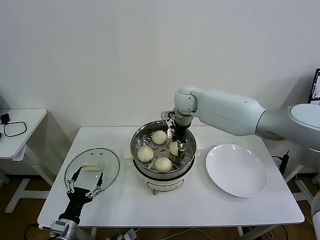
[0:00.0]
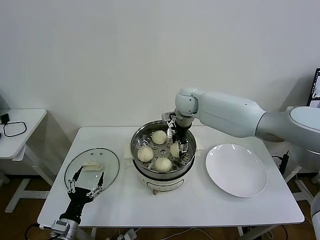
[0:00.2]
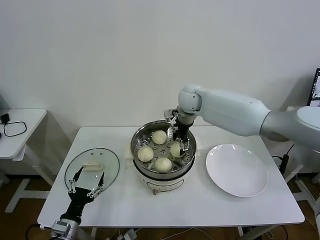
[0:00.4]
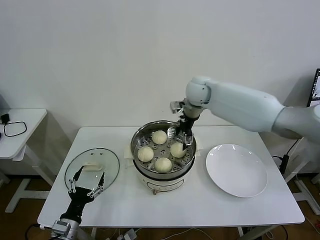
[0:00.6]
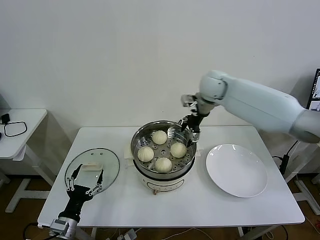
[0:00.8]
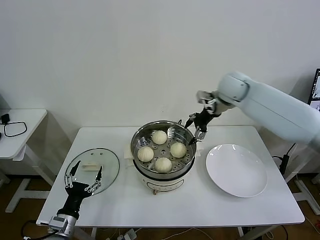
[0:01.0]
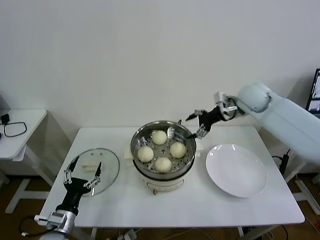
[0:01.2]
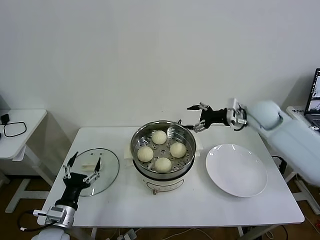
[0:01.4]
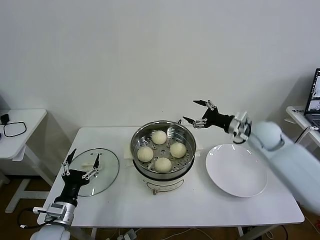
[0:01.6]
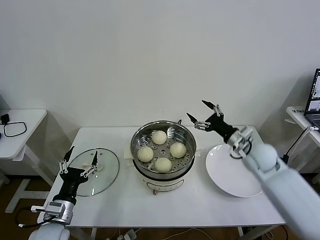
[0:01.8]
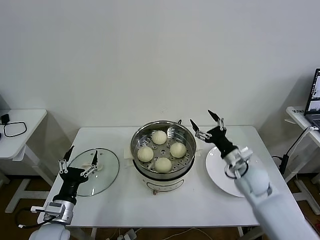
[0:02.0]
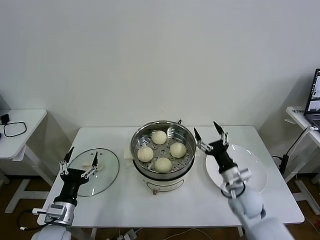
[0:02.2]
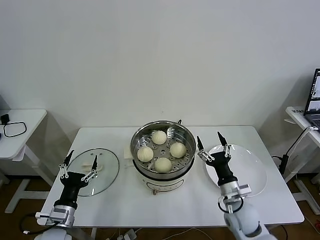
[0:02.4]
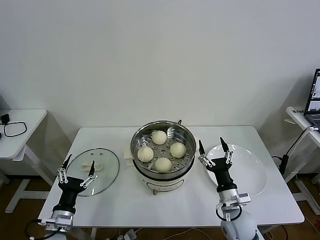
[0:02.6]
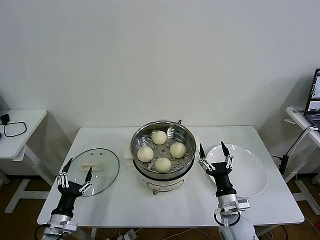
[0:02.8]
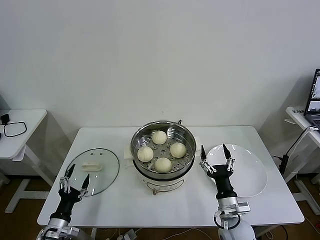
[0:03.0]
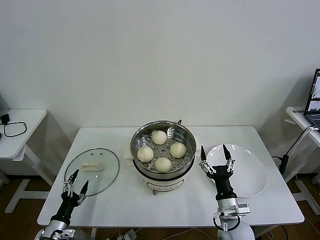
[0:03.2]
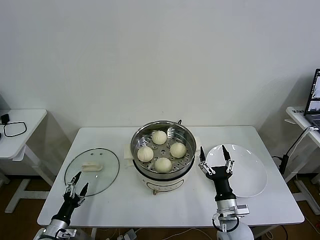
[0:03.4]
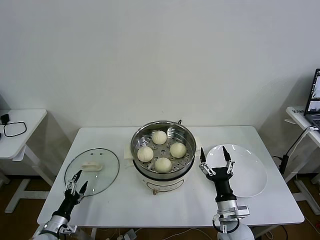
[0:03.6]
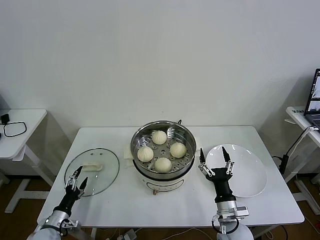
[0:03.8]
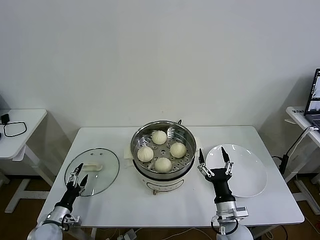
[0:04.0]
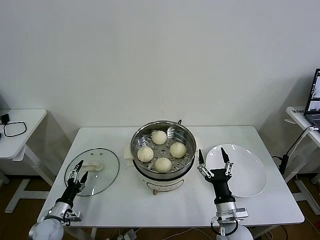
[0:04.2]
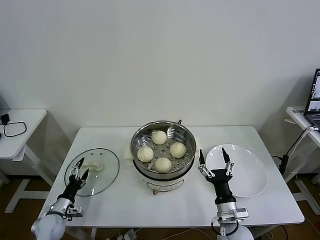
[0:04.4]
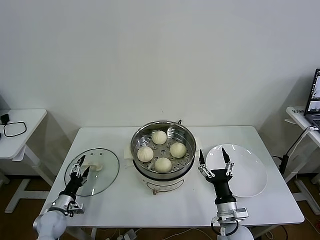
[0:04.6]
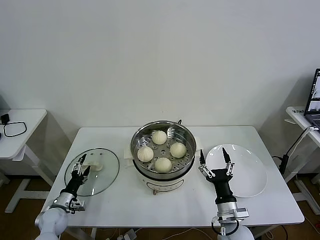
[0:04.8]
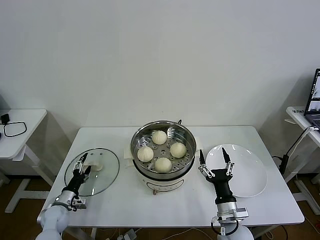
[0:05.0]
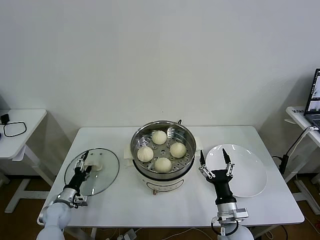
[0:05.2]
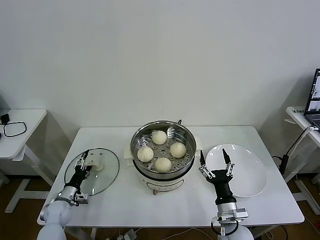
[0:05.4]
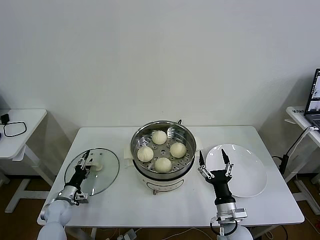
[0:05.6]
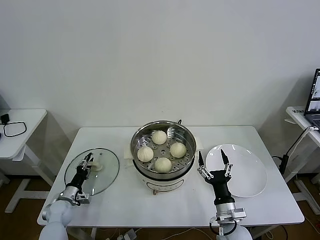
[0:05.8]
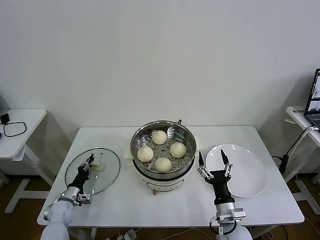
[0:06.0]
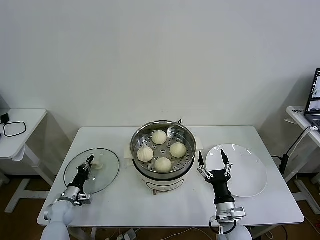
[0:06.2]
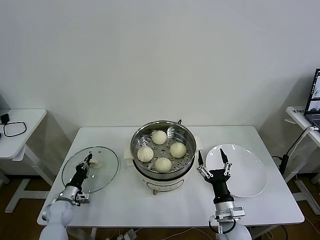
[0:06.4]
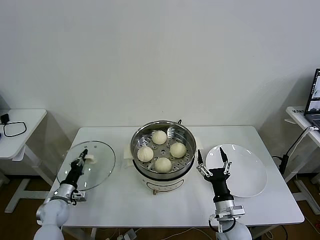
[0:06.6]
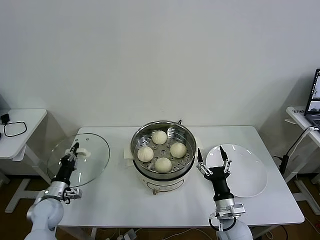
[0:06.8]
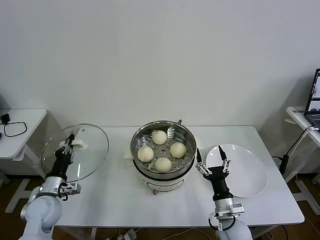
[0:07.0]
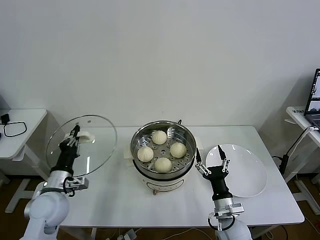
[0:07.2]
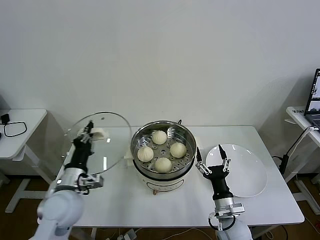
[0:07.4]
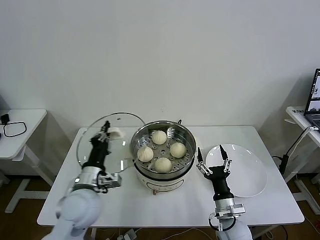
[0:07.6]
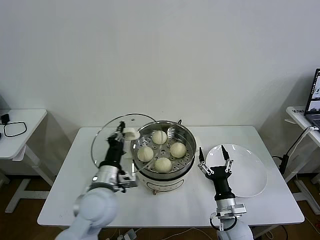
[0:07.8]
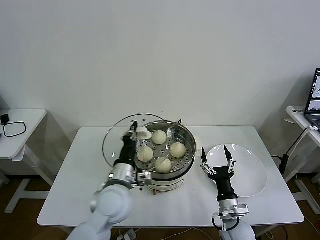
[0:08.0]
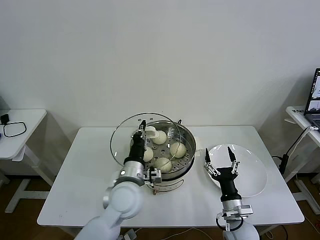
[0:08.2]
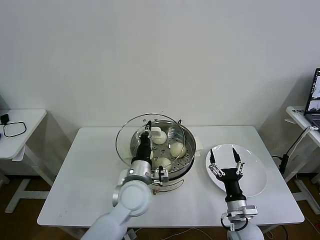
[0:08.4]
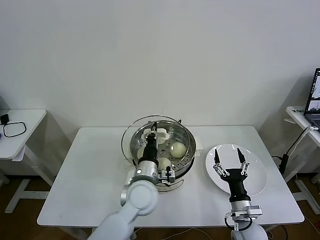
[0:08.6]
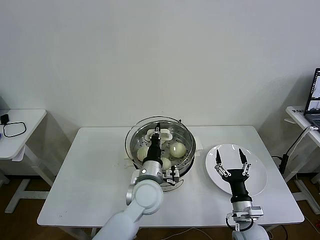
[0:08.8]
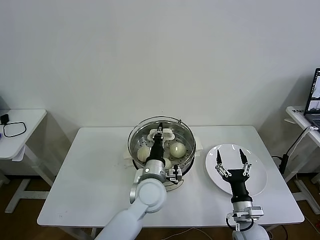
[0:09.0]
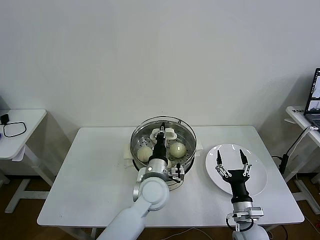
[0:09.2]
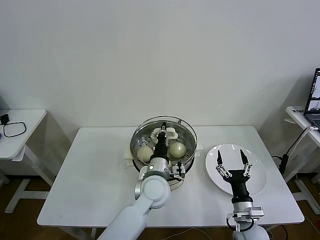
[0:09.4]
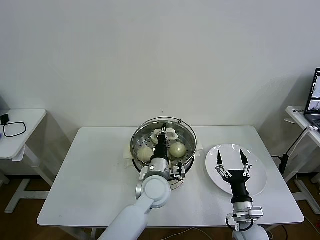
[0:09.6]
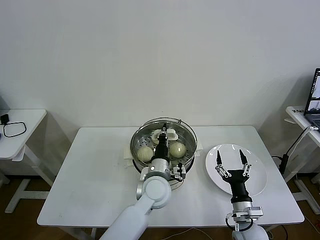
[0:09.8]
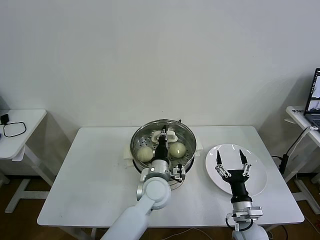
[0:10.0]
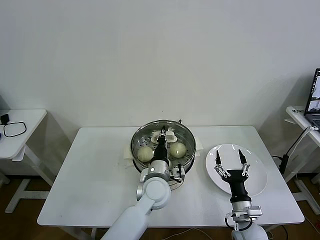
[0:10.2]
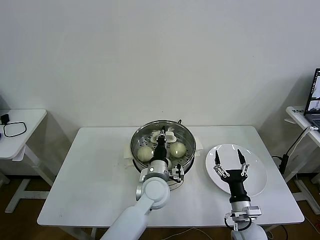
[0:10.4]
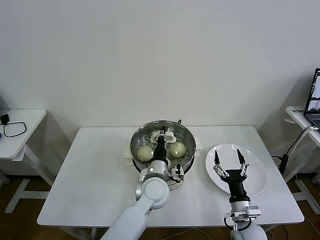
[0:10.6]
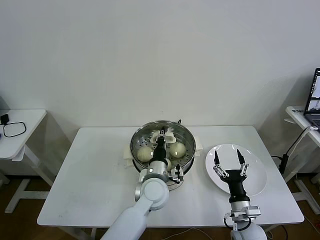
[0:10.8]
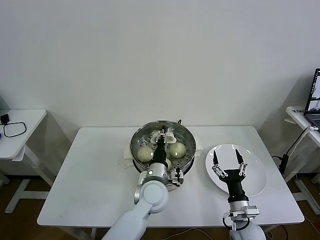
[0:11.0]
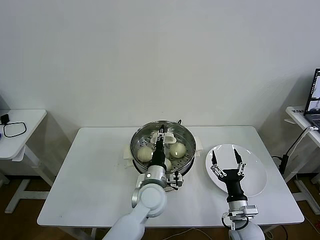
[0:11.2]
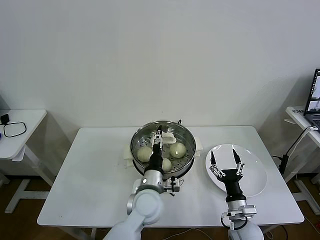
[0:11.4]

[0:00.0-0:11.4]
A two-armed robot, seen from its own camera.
Task of the whole recording: take steamed baozi put them in steamer then cover it.
Step, 0.6 to 6.2 s: Grasp the pot lid with left gripper.
Step, 6.4 to 11.0 s: Place the pot lid on the steamer with left gripper.
0.0 to 1.4 s: The right gripper heads to the right, covering some 25 cm, and opens up. Meanwhile the left gripper travels upward by some 5 cm.
1.4 to 2.8 s: The right gripper shifts some 35 cm backward and downward, while the left gripper goes about 5 cm downward.
2.8 to 4.2 s: The left gripper heads downward, to the left and forward, covering about 10 cm.
4.2 to 5.6 s: The left gripper is displaced forward by approximately 5 cm.
5.6 to 7.2 s: The left gripper heads upward, covering some 20 cm, and closes its fingers.
7.2 to 8.6 s: The left gripper shifts approximately 25 cm to the right.
8.6 to 10.0 s: The left gripper shifts by approximately 5 cm.
10.0 to 11.4 s: The left gripper opens up.

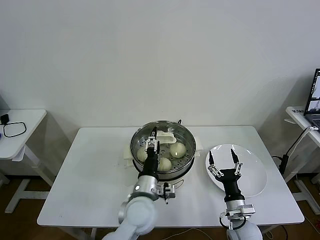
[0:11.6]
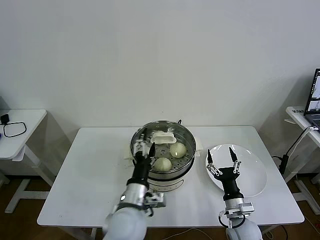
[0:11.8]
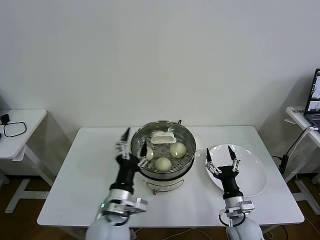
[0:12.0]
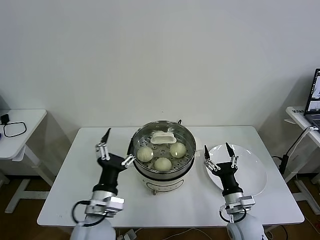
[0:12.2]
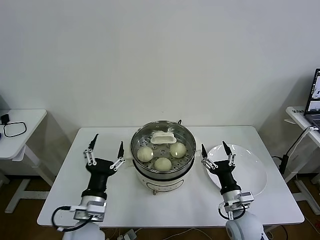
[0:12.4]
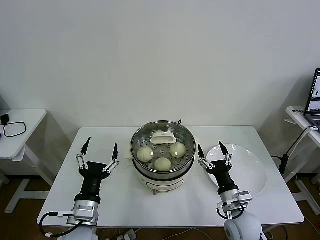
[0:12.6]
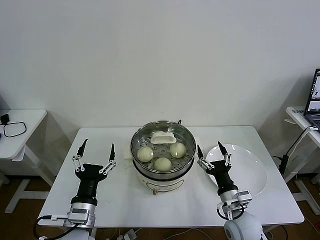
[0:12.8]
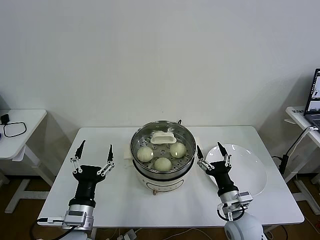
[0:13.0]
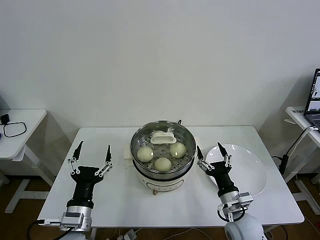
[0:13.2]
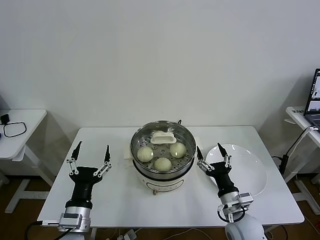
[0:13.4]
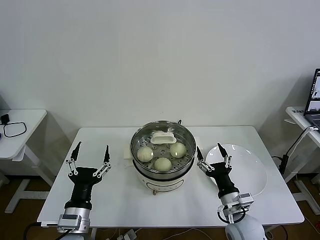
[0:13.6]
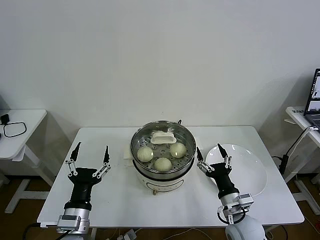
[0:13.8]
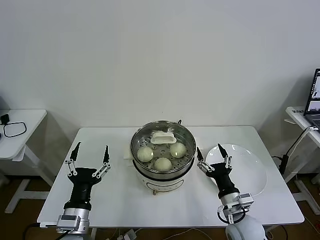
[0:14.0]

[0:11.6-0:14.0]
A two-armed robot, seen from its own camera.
Task of the whole recording: take steamed baozi put them in steamer then cover it.
11.6 to 12.8 s: The right gripper is displaced upward by some 5 cm. Meanwhile the left gripper heads to the left and backward, covering some 20 cm.
12.8 to 14.0 s: The grippers make only small movements.

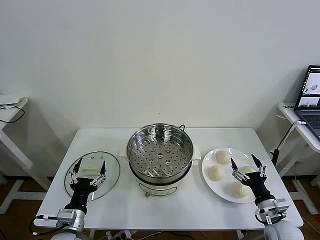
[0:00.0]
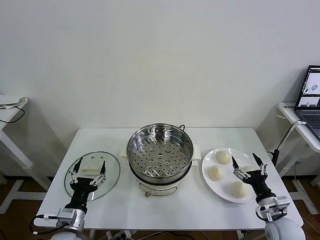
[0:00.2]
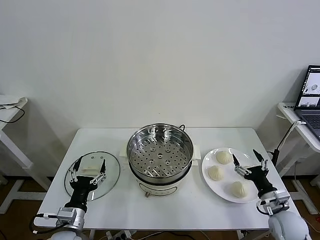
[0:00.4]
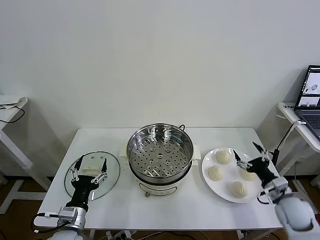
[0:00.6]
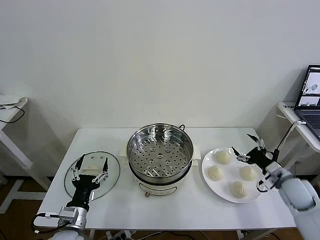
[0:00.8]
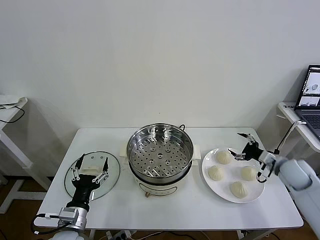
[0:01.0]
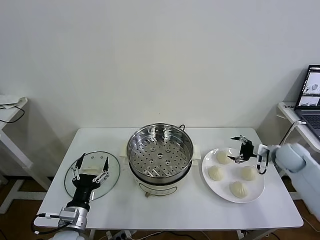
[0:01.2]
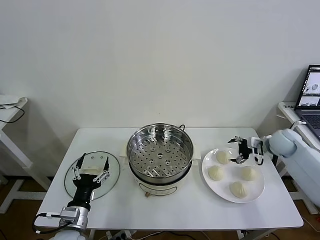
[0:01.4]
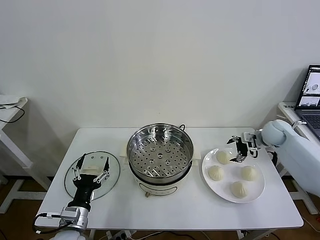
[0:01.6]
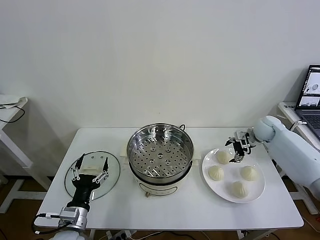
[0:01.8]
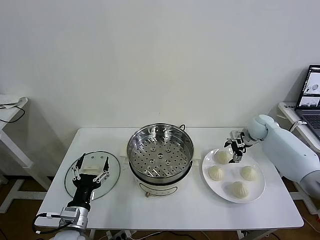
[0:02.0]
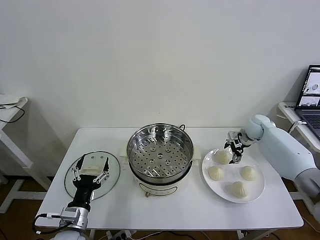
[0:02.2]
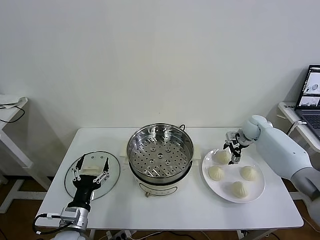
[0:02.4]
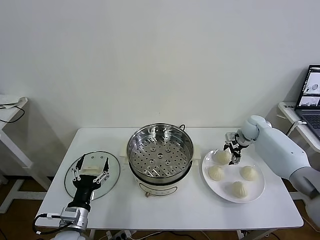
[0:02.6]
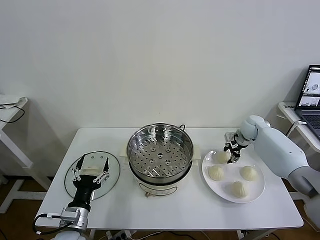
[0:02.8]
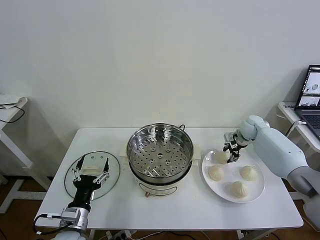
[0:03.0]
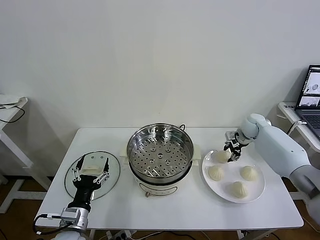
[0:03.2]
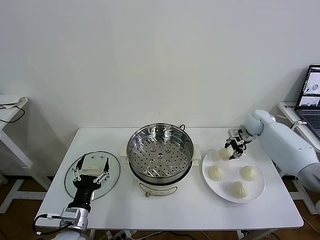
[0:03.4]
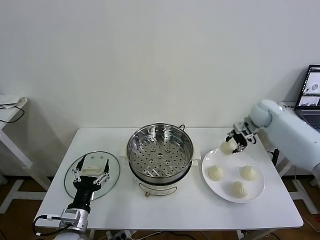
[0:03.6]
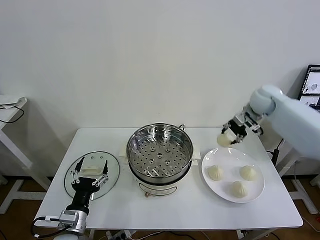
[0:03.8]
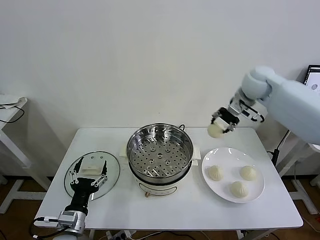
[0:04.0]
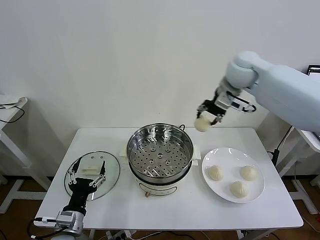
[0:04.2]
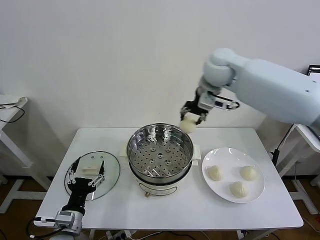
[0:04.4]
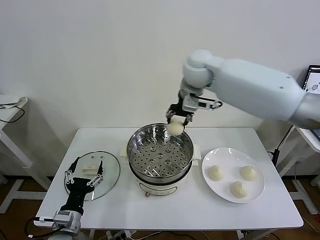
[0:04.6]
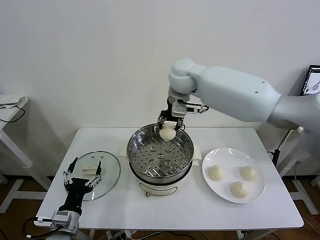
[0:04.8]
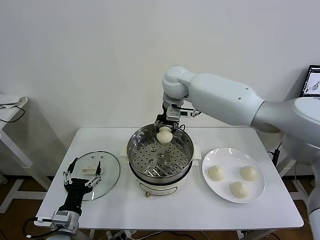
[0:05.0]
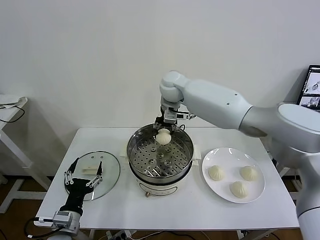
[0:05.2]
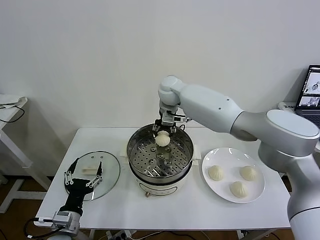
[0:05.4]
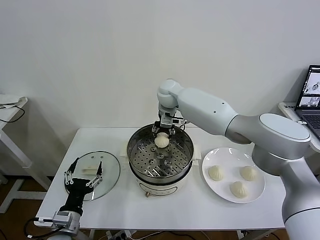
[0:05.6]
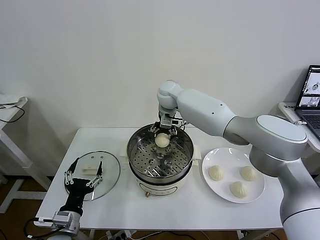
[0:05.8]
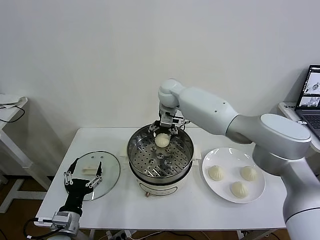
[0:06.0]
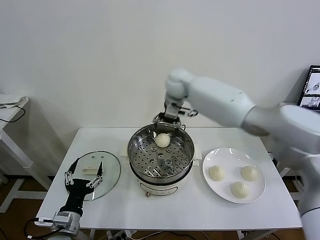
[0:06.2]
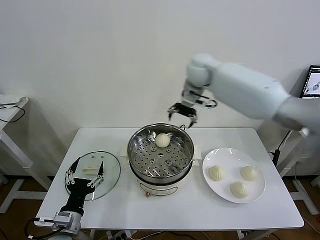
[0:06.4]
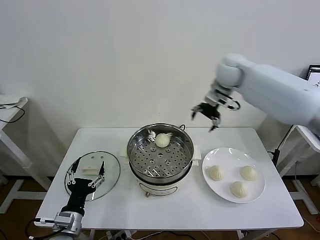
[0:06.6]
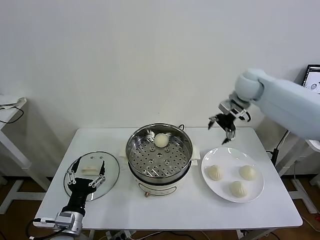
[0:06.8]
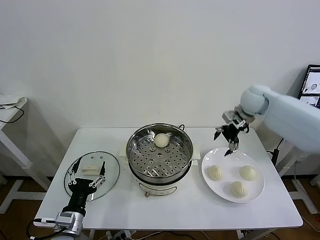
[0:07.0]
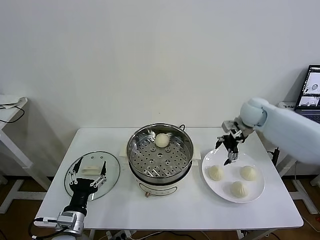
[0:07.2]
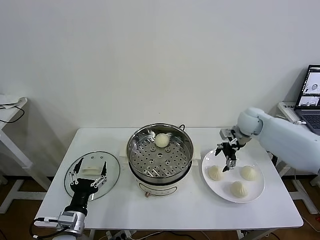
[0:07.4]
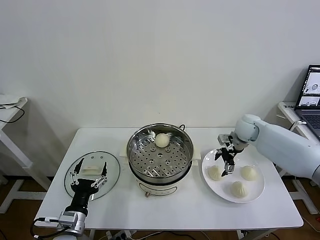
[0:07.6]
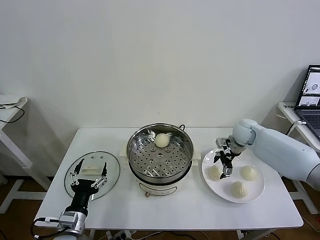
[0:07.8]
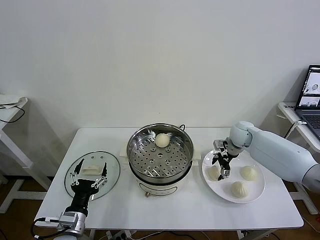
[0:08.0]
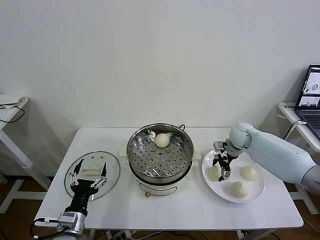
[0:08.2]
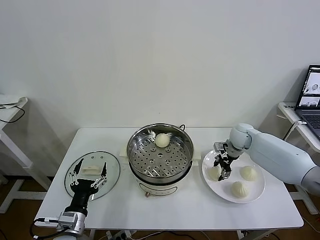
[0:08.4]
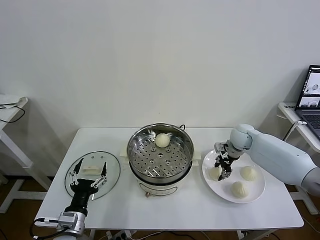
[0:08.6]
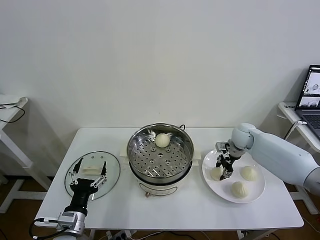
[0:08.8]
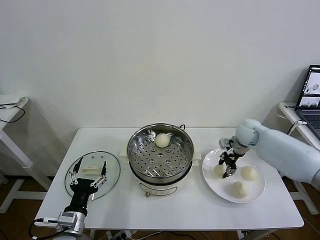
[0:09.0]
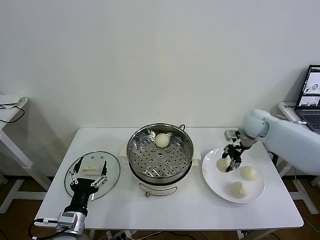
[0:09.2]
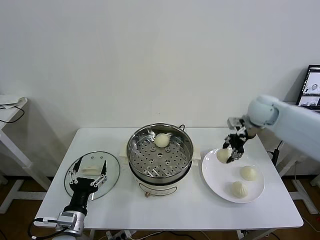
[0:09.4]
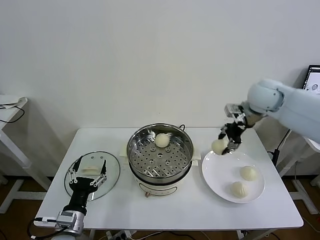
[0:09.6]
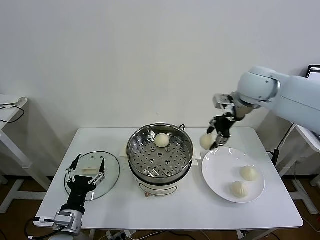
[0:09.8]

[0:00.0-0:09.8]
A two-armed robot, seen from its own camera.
Task of the whole recording: take steamed baozi put them in steamer then cover it.
Step, 0.0 to 2.8 s: Grasp the baozi in the plate with right gripper.
Step, 3.0 to 5.8 s: Place the baozi on the steamer with right gripper.
Step, 6.0 to 8.4 s: Grasp the baozi in the plate with right gripper.
1.4 to 2.8 s: The right gripper moves forward and to the left, some 10 cm, and closes.
2.8 to 4.2 s: The right gripper moves upward and to the left, roughly 35 cm.
4.2 to 5.6 s: The right gripper heads to the left and downward, covering about 20 cm.
5.6 to 7.0 s: The right gripper shifts roughly 30 cm to the right, and opens up.
7.0 to 8.4 s: The right gripper moves downward, some 15 cm, and closes up.
8.4 to 9.8 s: The right gripper travels upward by some 25 cm.
